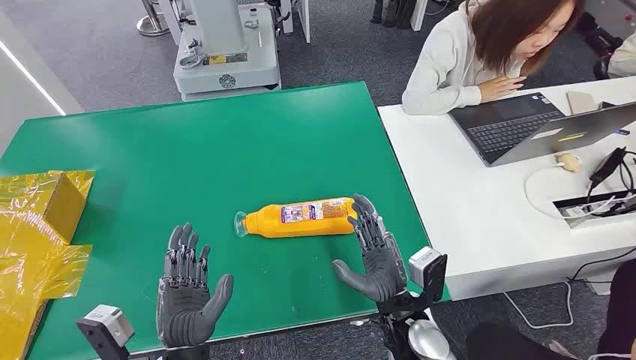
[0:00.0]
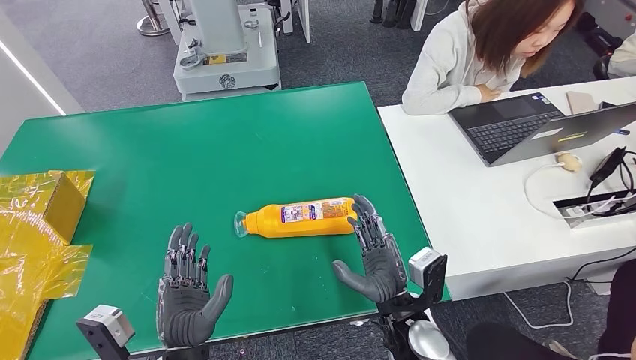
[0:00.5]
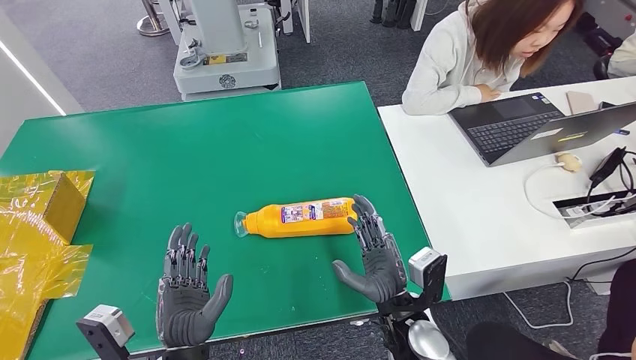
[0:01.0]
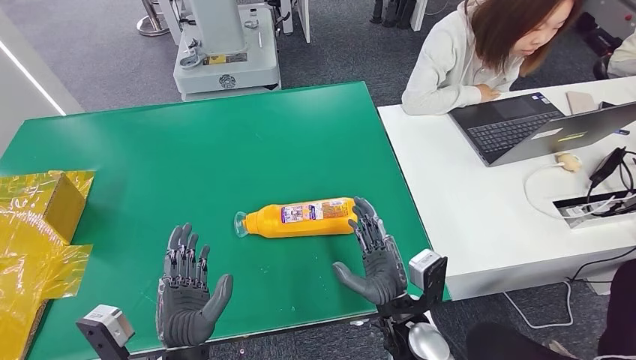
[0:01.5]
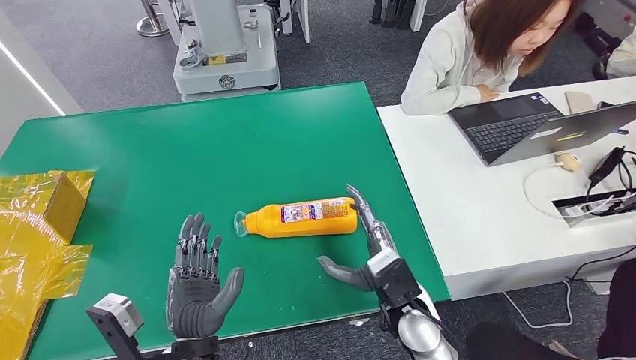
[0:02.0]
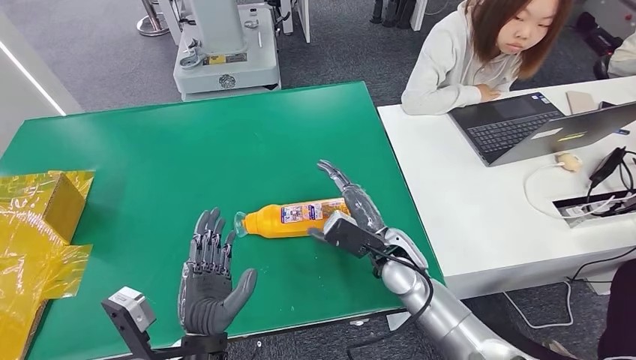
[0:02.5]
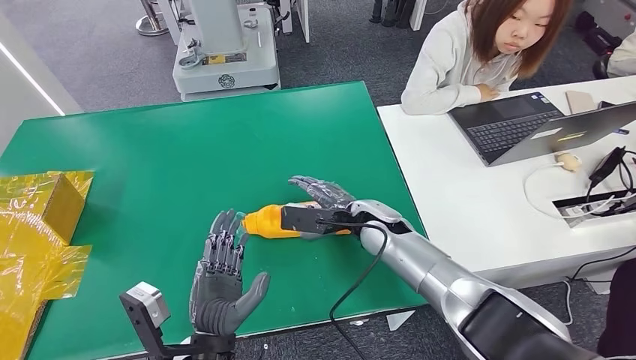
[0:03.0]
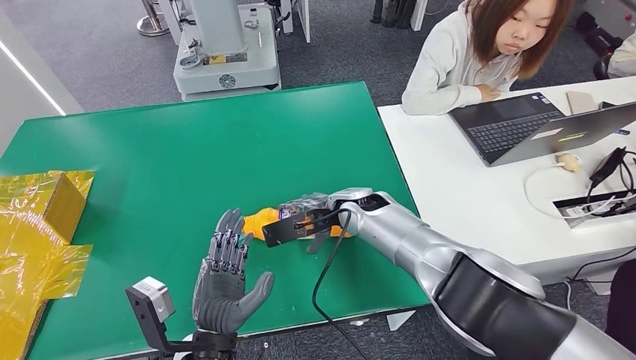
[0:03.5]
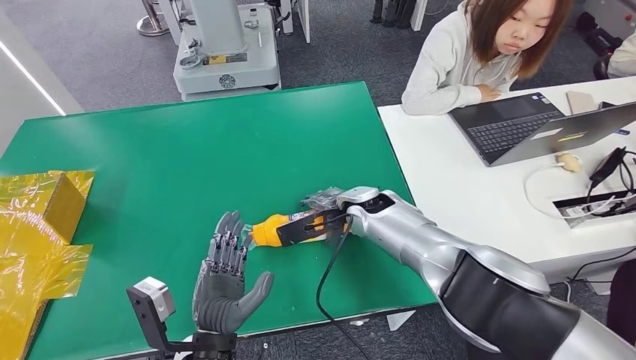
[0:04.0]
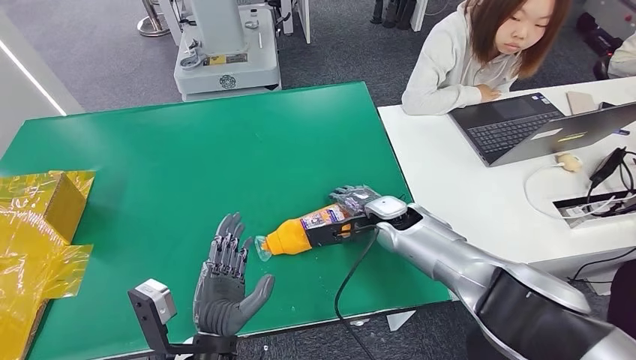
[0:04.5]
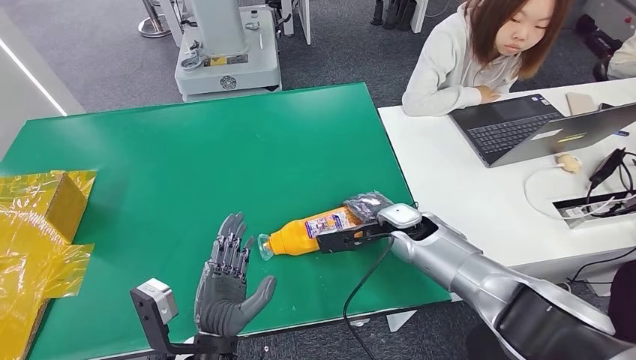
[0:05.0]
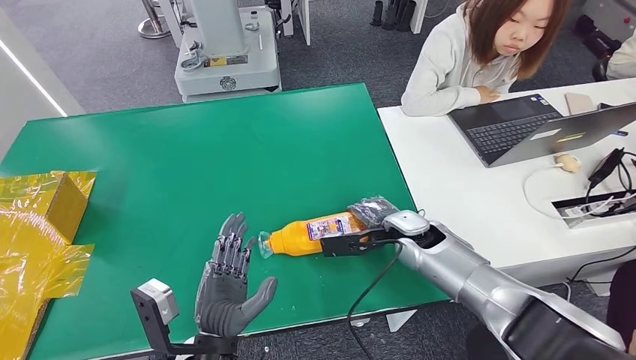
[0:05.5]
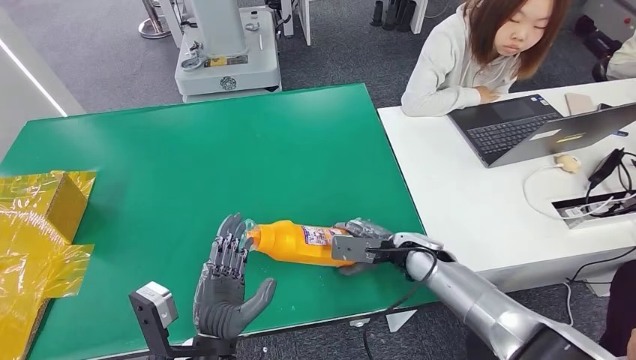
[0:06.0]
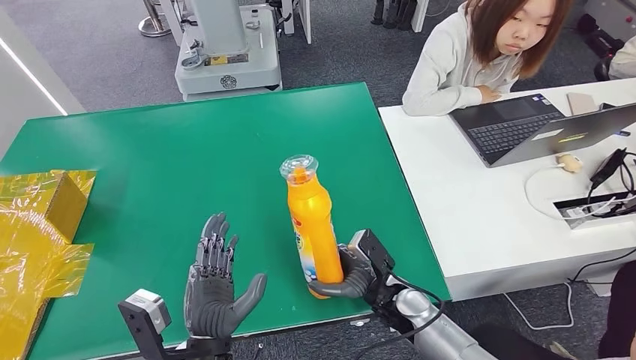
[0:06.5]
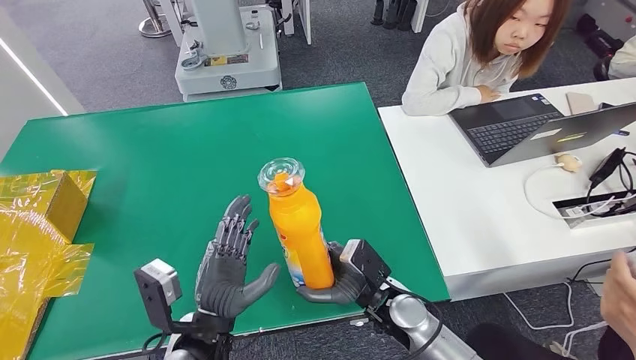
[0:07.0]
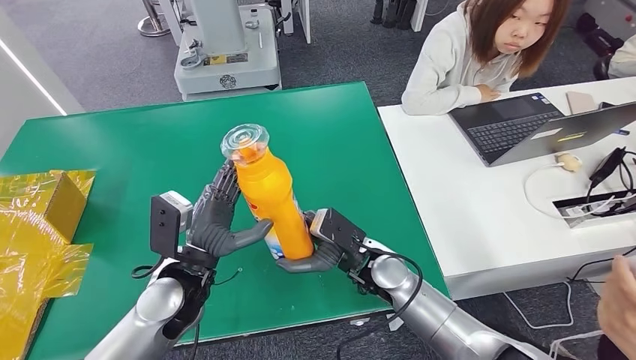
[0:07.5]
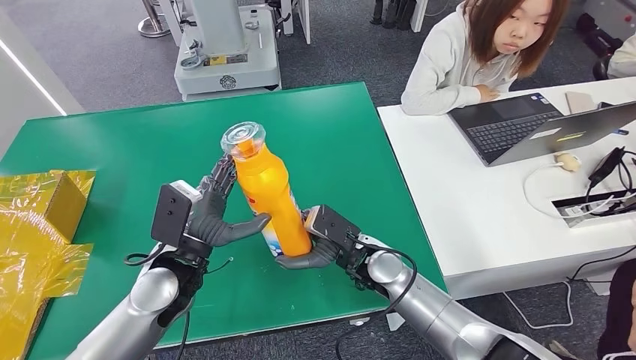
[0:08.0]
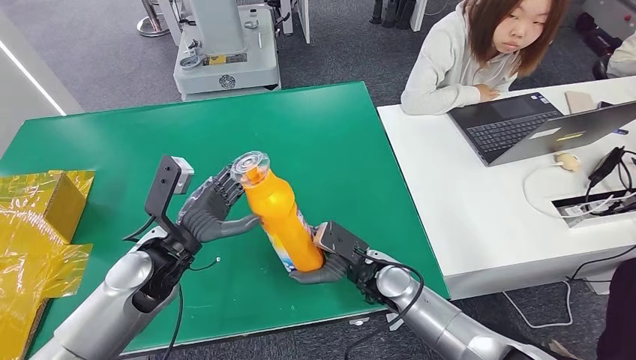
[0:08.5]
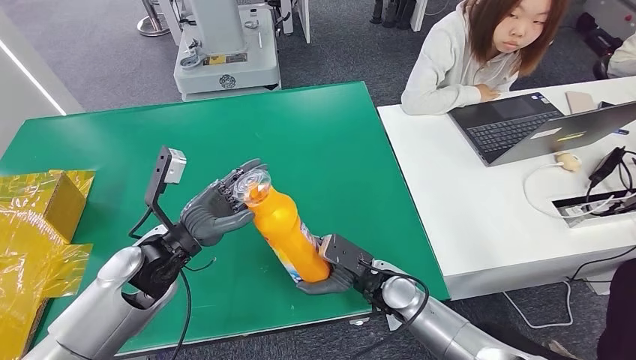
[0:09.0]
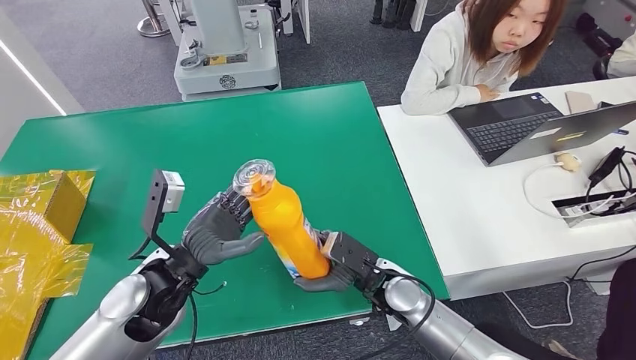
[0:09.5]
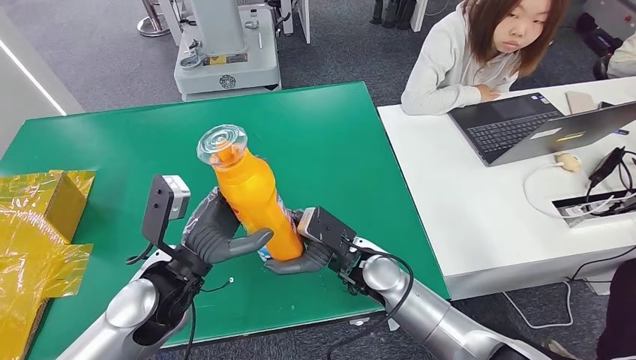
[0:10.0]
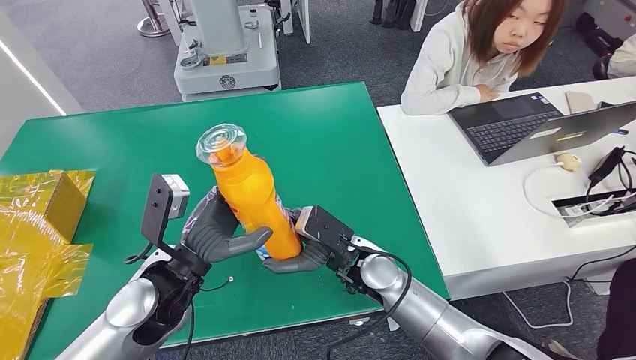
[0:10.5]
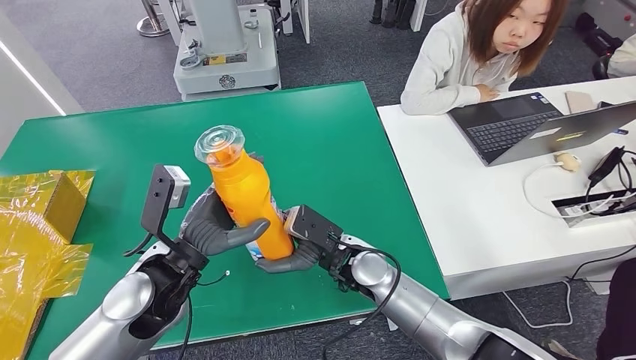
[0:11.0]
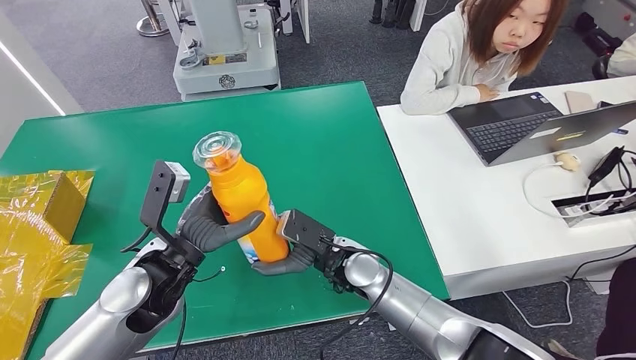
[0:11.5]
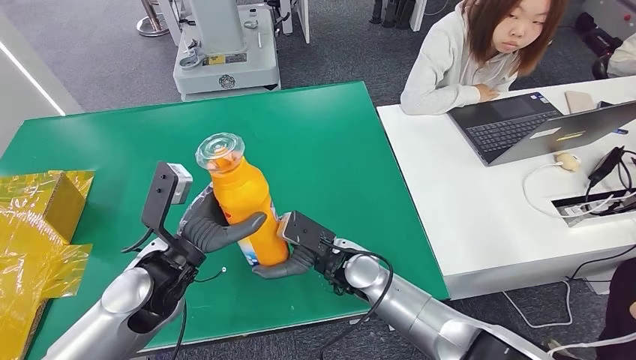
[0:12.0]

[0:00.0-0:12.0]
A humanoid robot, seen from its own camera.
Step, 0:00.0 to 0:06.5: Pick up the bottle from the table.
0:02.0 to 0:04.0: The right hand moves forward, roughly 20 cm.
0:04.0 to 0:06.0: The right hand is displaced to the right, backward and downward by some 15 cm.
0:06.0 to 0:08.0: The left hand is displaced forward and upward by roughly 15 cm. The right hand goes about 10 cm to the left.
0:10.0 to 0:12.0: There are only small adjustments of the hands.

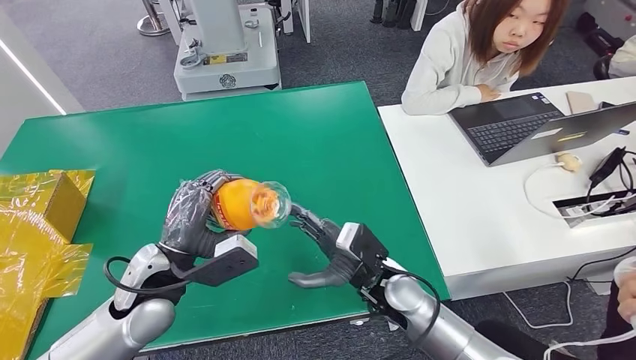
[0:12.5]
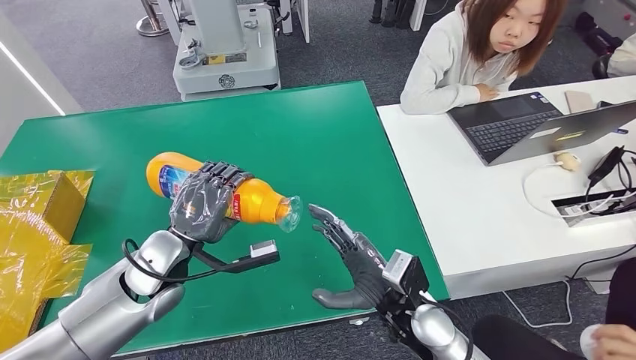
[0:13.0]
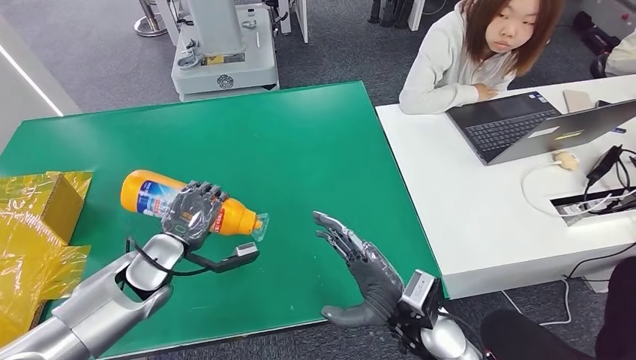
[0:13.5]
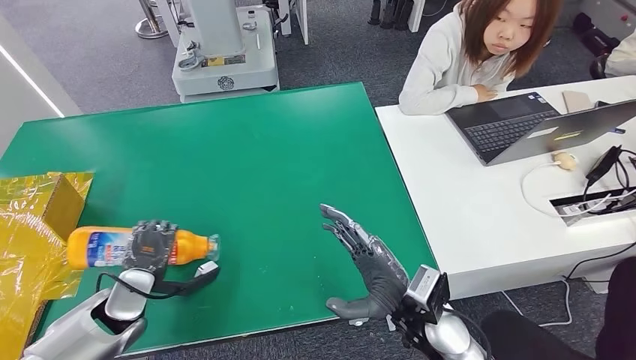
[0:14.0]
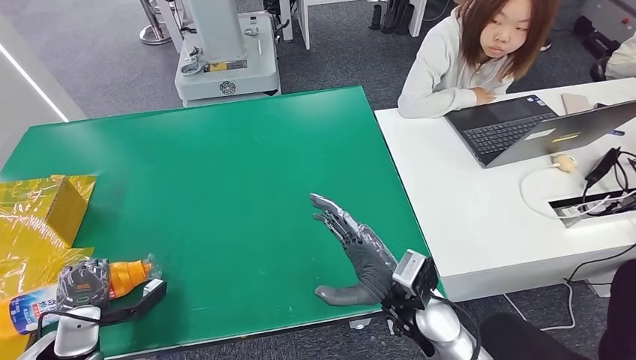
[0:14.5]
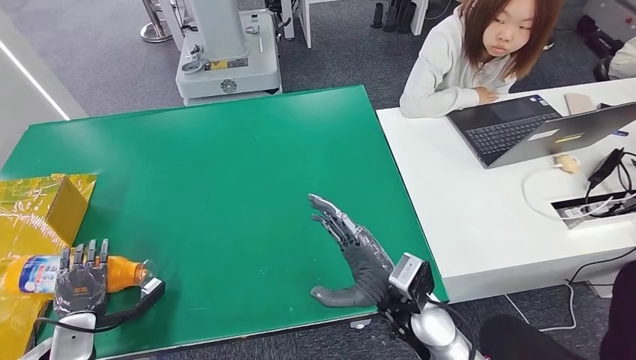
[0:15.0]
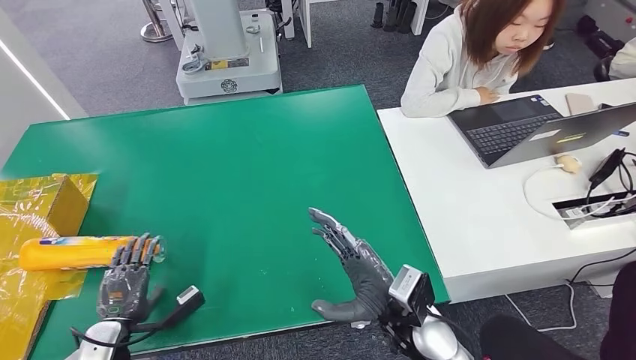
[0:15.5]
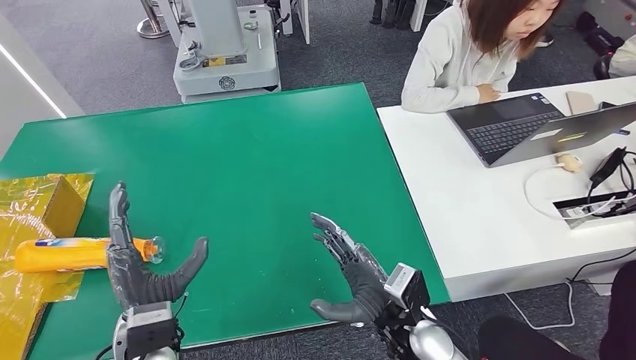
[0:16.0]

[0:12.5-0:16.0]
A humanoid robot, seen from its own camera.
Step, 0:12.5 to 0:16.0: Turn the bottle to the front side.
